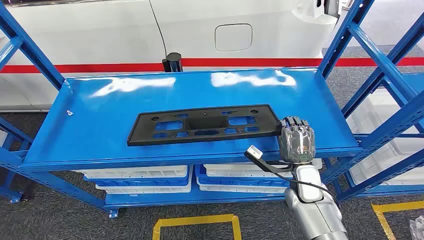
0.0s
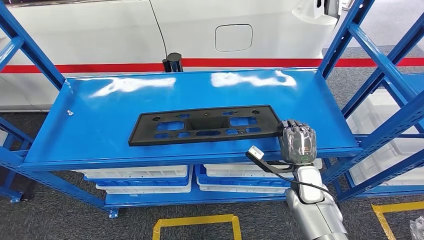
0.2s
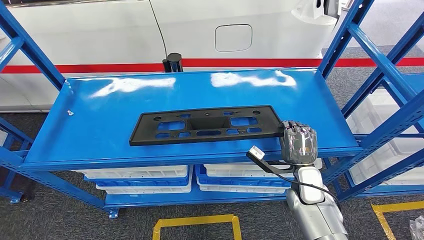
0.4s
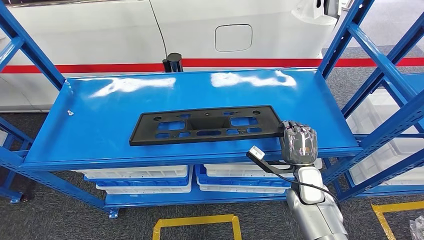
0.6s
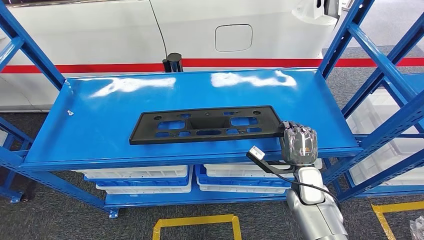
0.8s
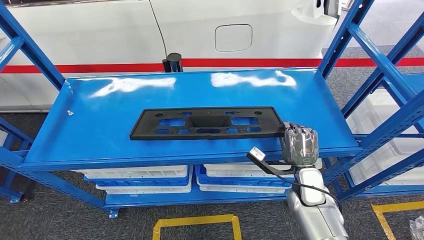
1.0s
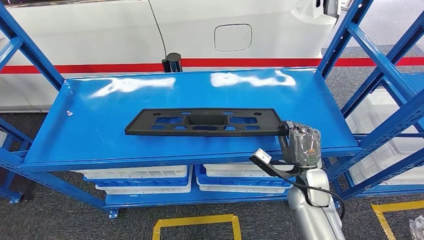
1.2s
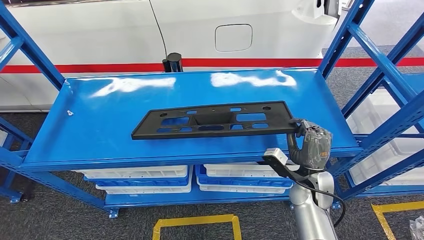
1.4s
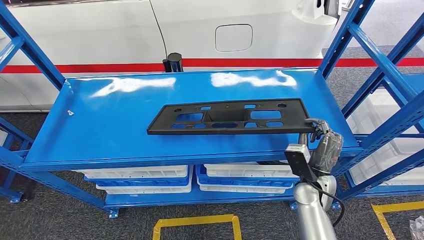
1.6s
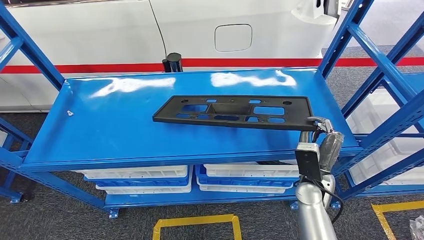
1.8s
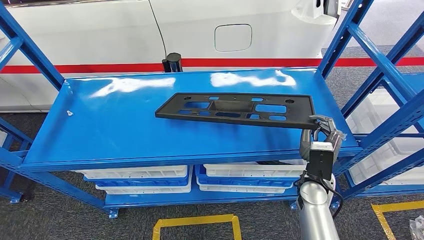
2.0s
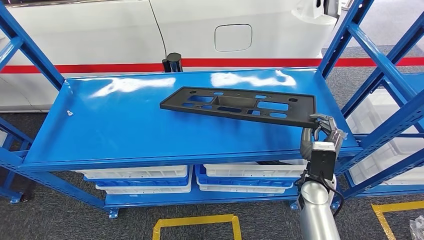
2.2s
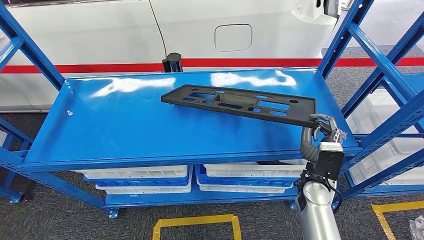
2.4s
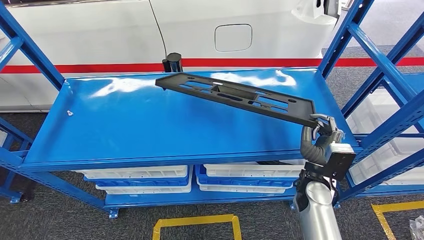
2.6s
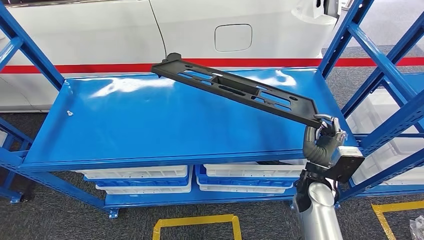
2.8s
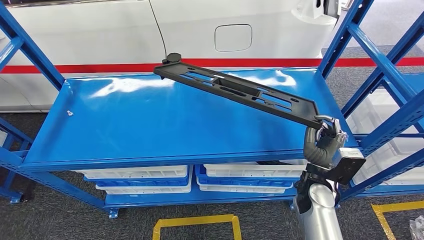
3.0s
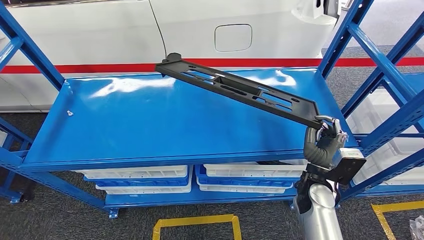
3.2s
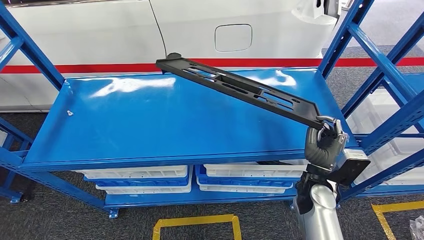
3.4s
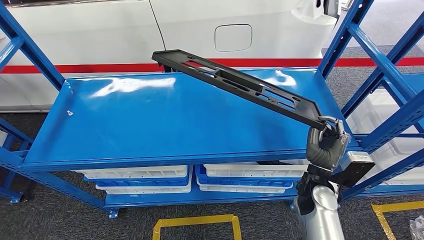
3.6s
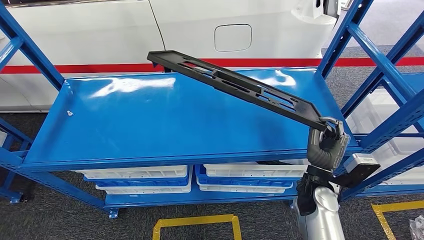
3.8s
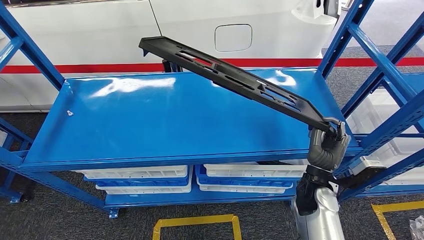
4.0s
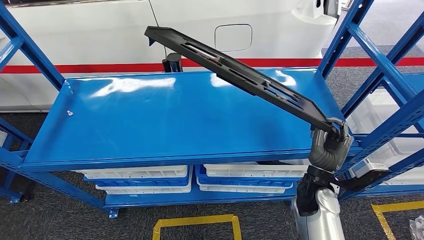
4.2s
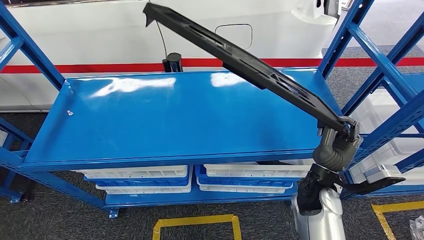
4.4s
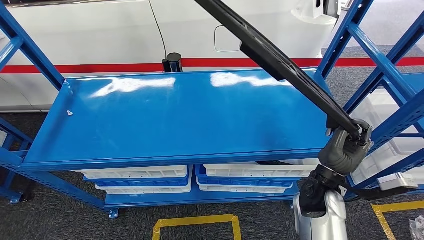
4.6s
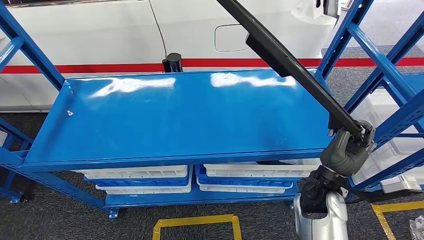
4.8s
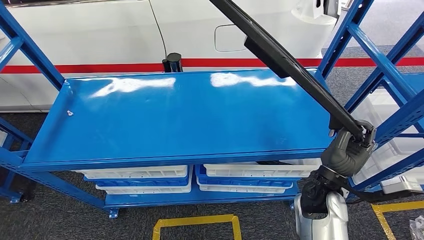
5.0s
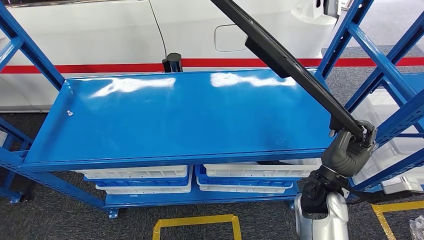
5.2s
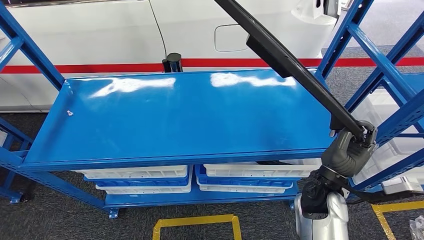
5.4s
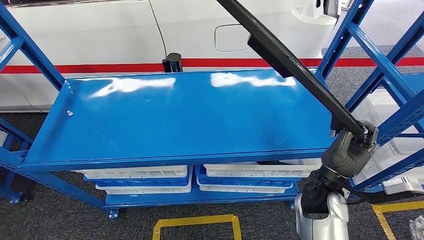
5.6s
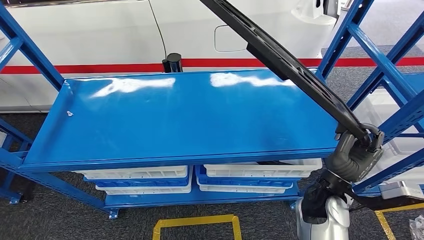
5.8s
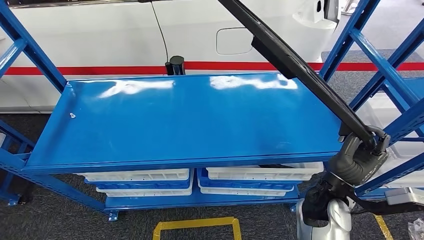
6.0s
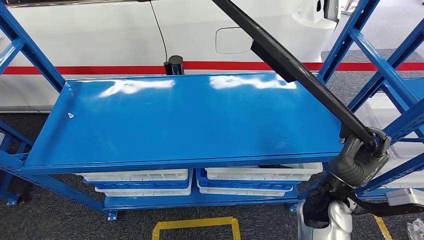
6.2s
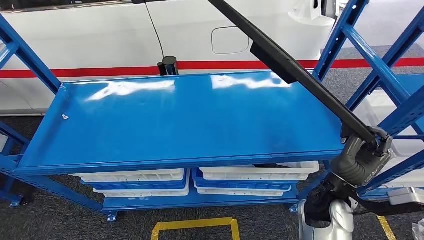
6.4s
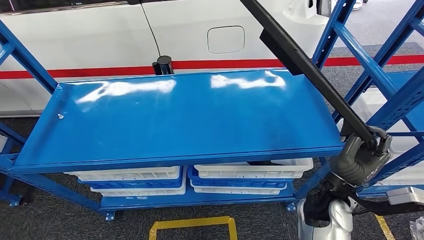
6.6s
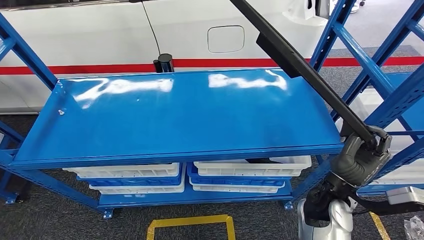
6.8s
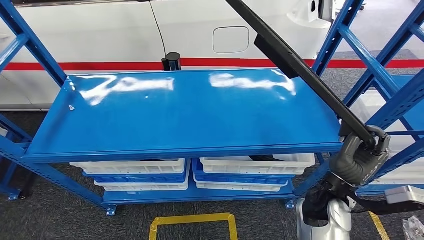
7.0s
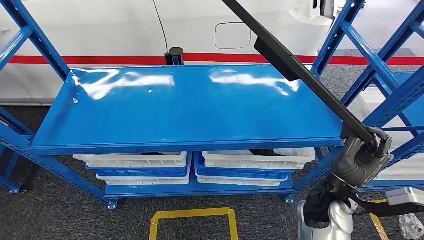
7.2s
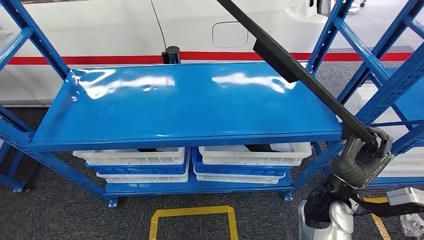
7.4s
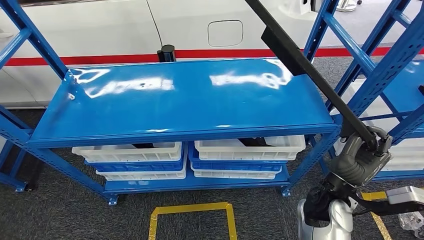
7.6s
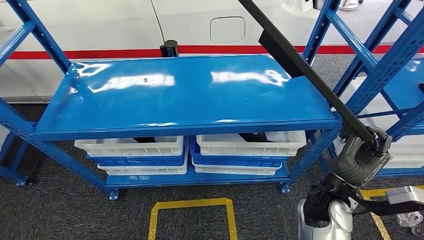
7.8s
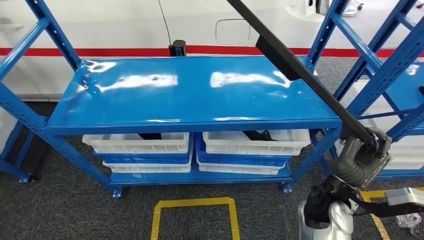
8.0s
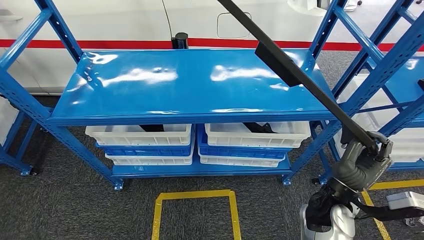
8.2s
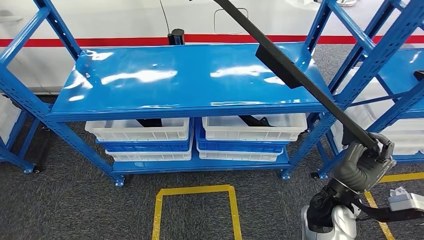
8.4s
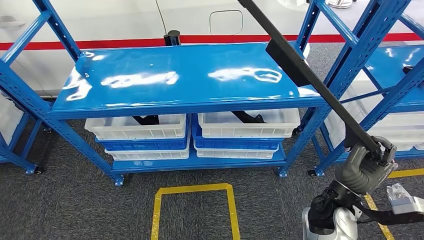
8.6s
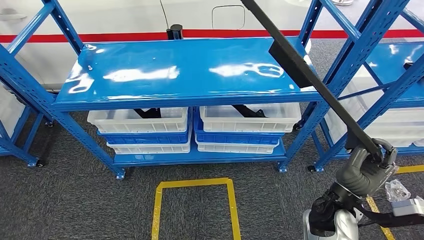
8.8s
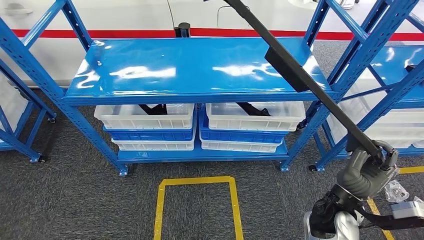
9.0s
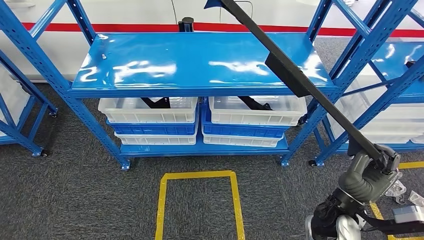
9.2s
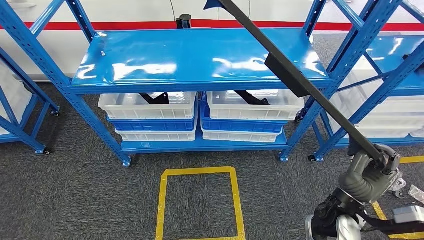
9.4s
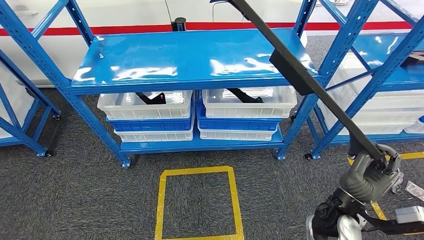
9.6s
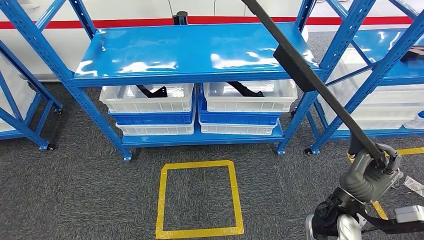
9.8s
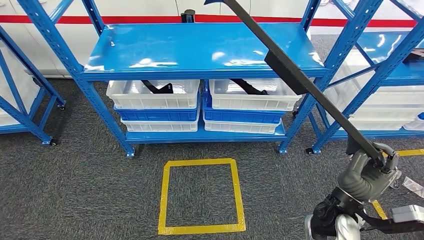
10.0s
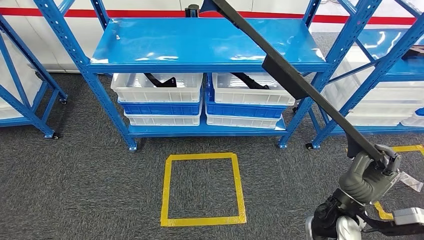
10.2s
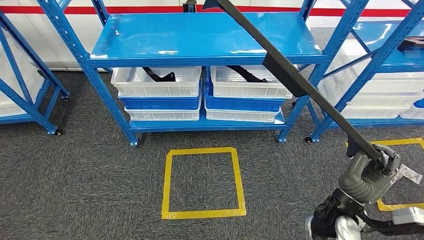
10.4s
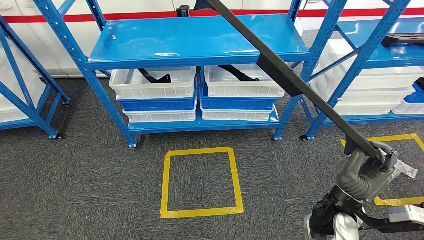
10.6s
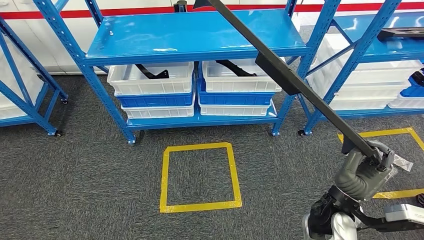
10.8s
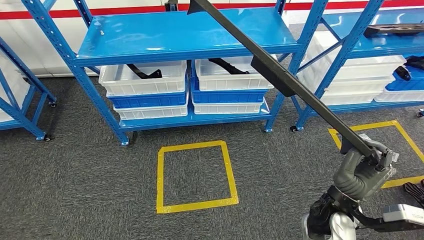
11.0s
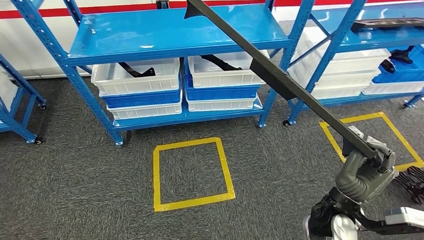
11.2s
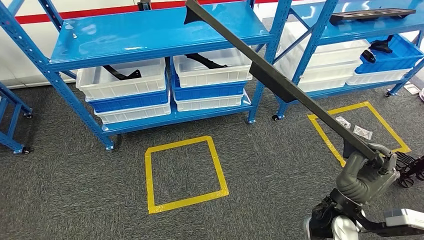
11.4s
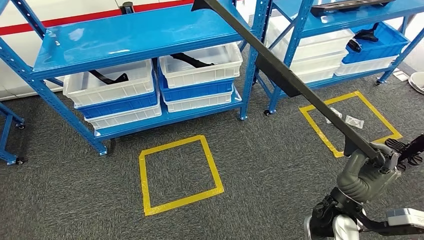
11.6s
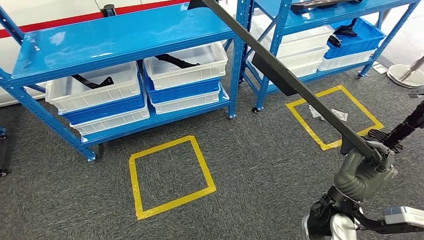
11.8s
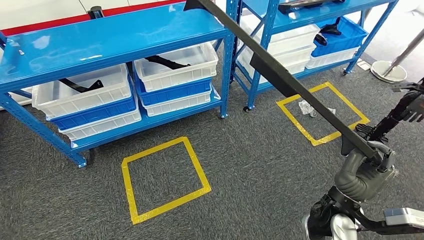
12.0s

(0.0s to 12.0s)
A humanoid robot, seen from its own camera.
Step, 0.0s - 4.4s: Pick up the large material from the shelf.

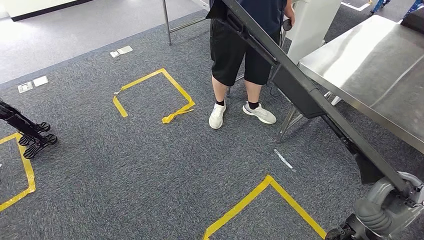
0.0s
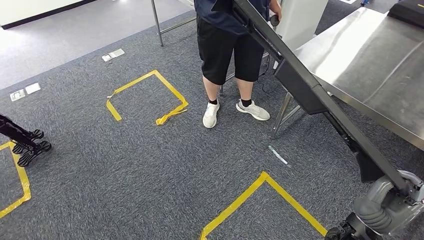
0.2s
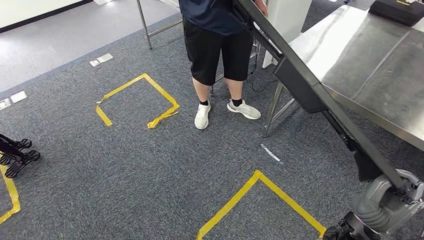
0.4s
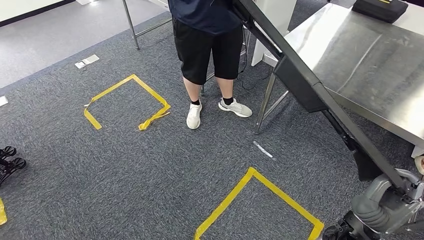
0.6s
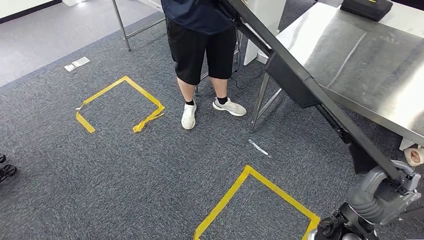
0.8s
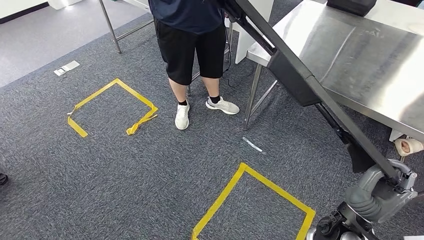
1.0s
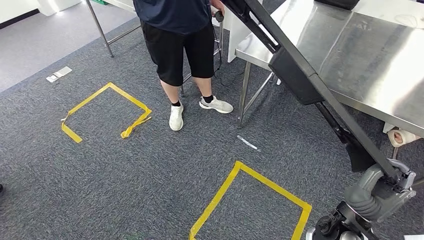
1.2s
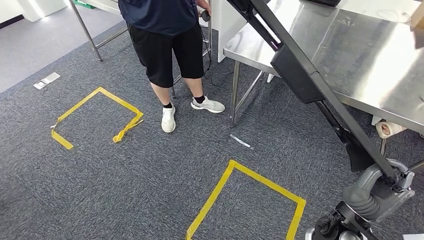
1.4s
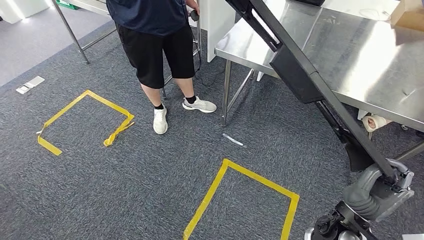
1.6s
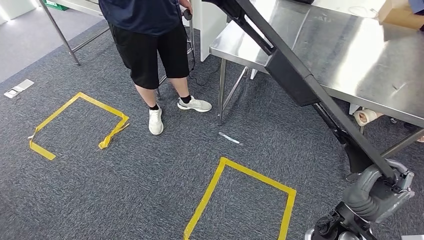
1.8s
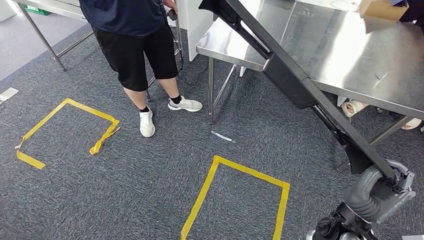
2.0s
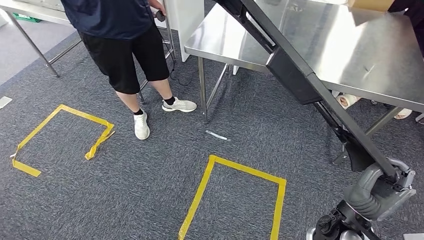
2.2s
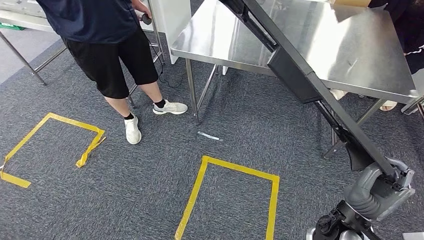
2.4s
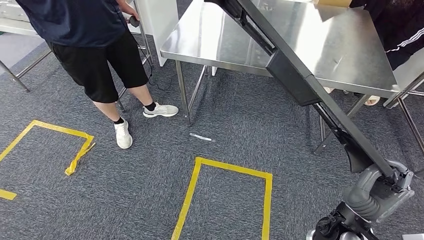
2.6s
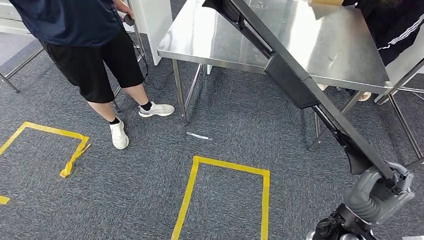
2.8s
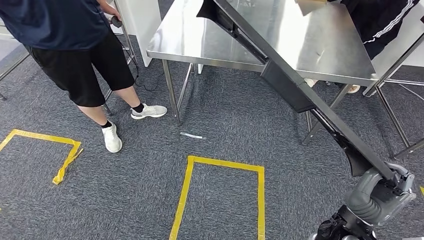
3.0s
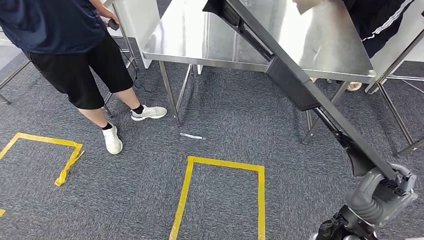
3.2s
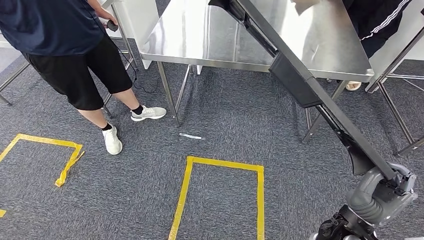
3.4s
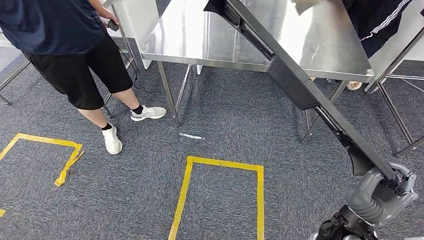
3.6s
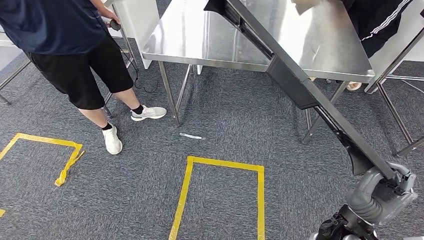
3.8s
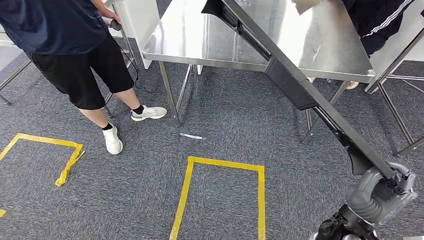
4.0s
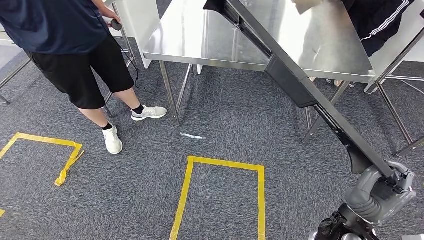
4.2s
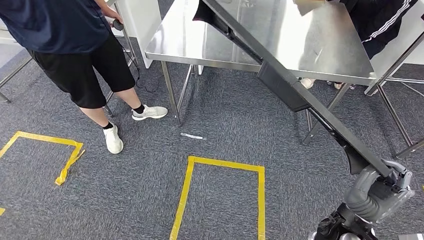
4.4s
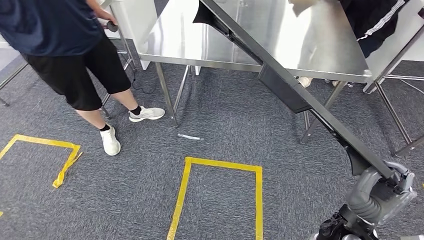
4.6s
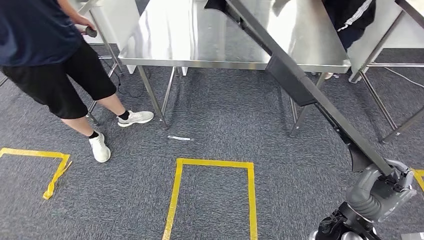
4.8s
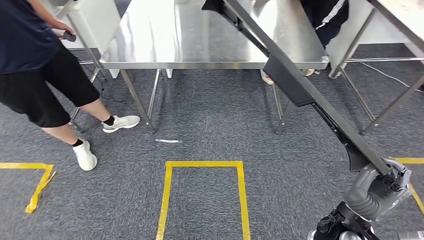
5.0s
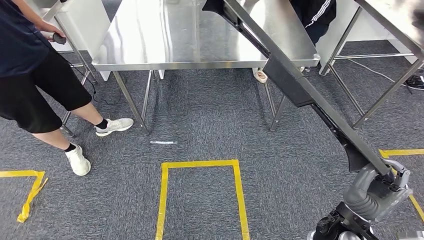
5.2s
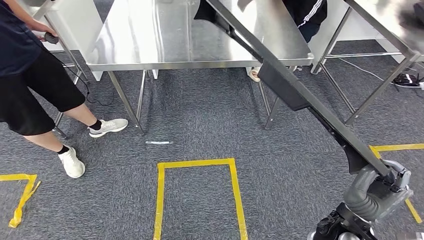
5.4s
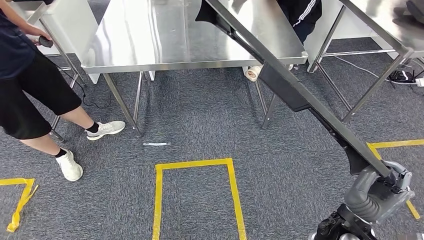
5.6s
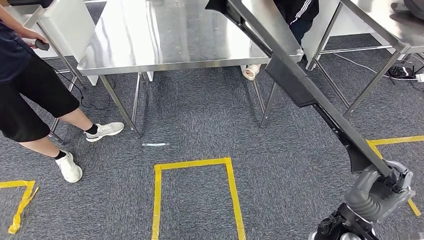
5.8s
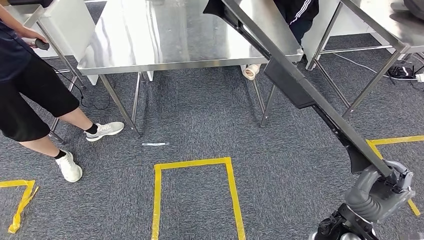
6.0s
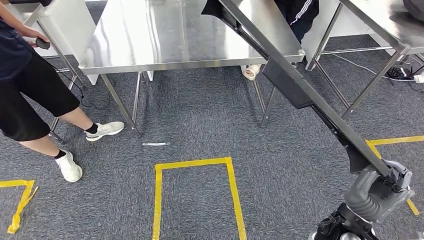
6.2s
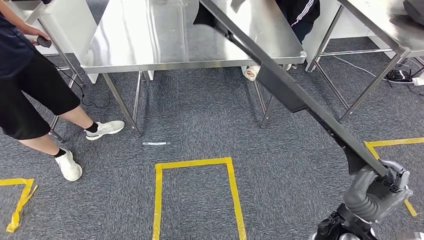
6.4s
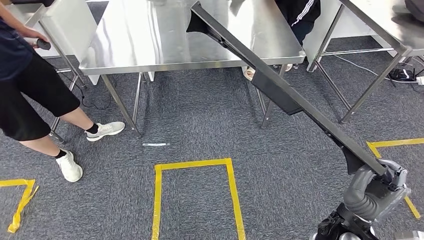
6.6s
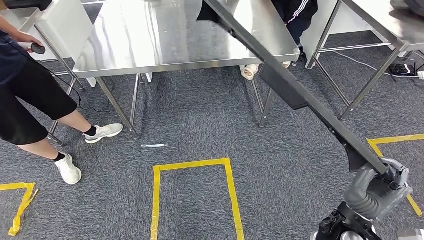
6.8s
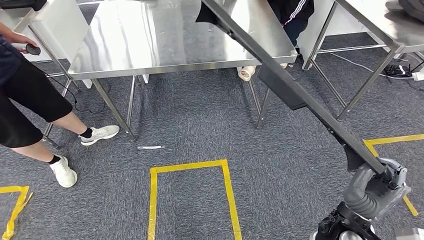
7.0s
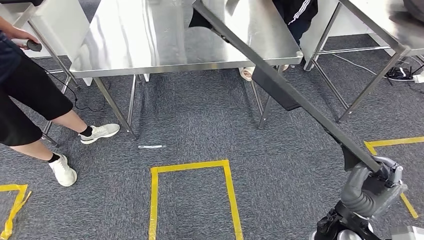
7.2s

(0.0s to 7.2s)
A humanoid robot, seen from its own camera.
Step, 0.0s - 3.2s: Move the large material to the workbench.
